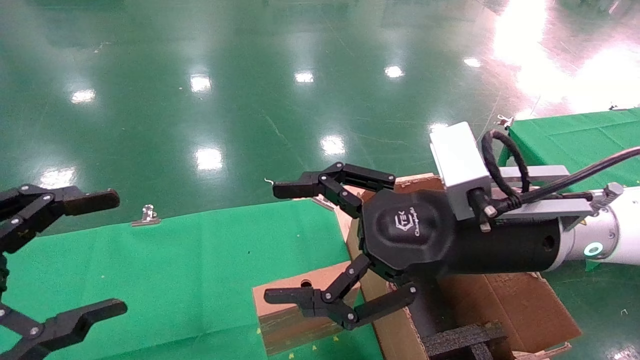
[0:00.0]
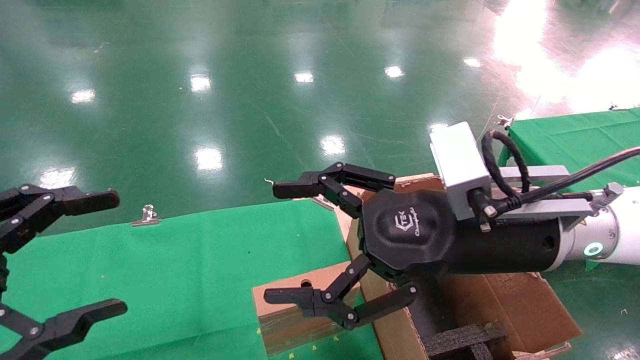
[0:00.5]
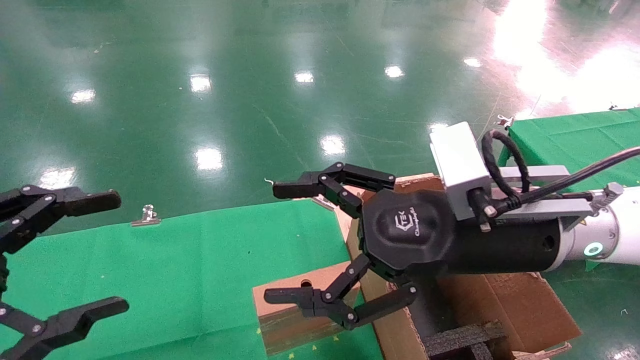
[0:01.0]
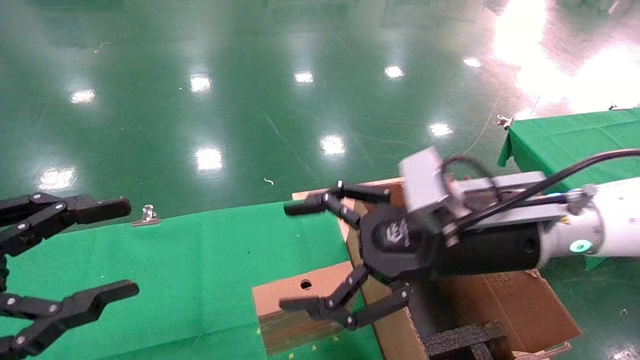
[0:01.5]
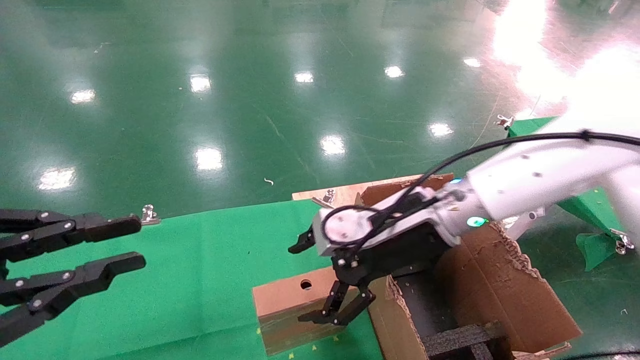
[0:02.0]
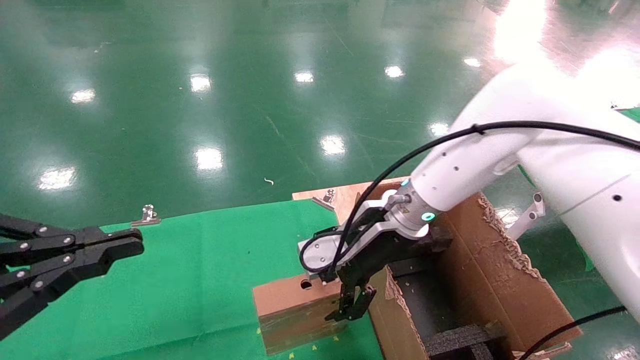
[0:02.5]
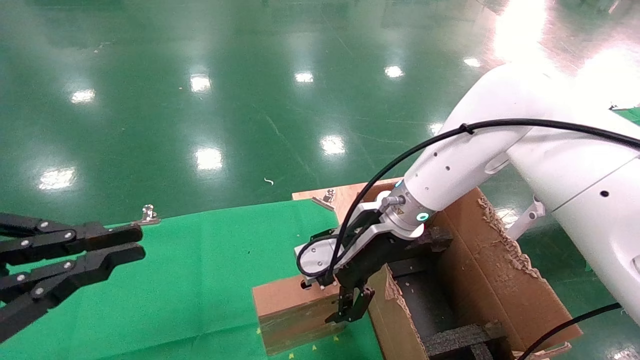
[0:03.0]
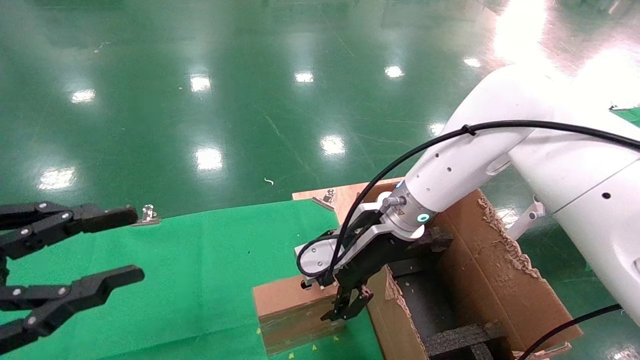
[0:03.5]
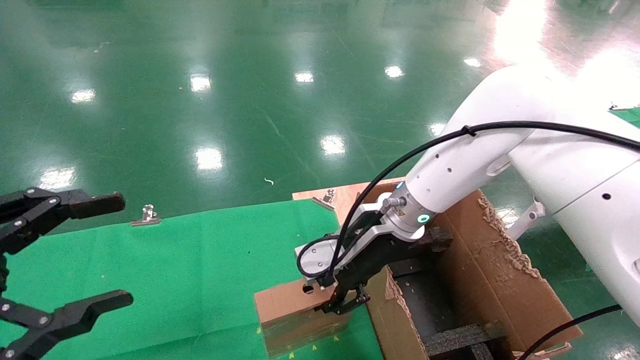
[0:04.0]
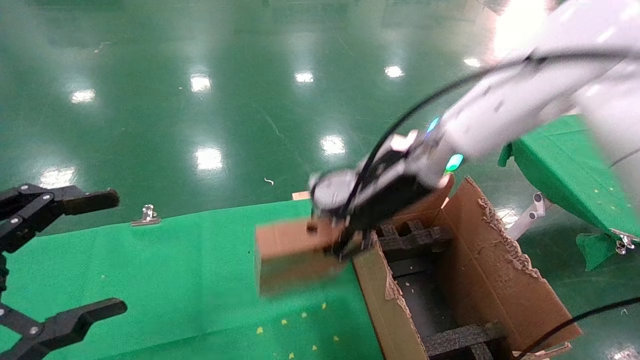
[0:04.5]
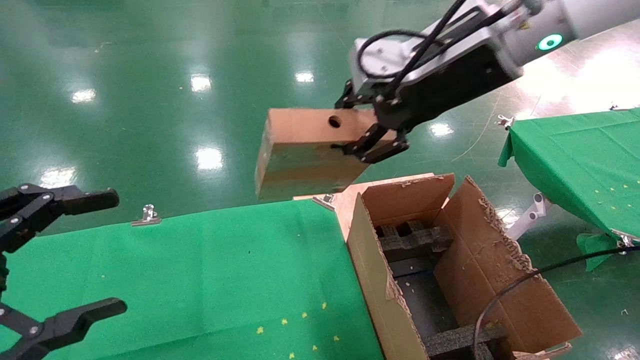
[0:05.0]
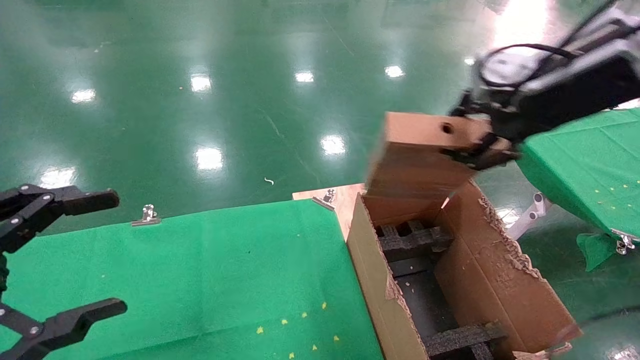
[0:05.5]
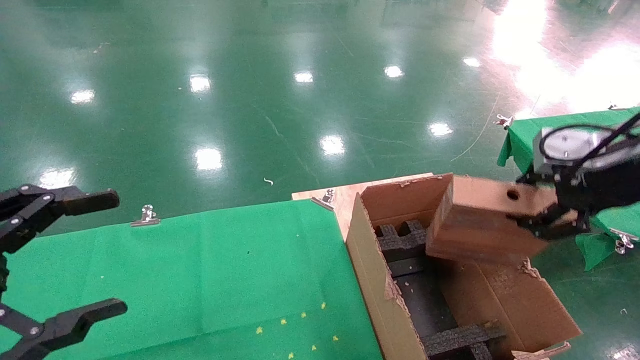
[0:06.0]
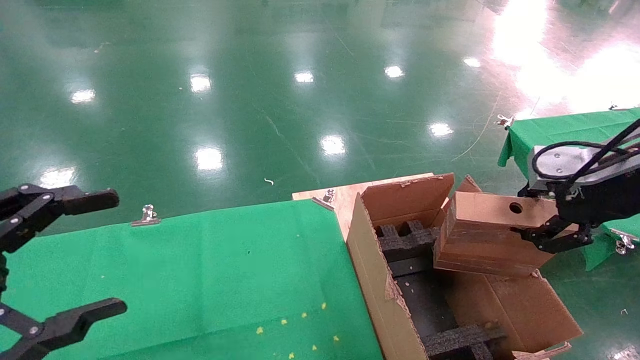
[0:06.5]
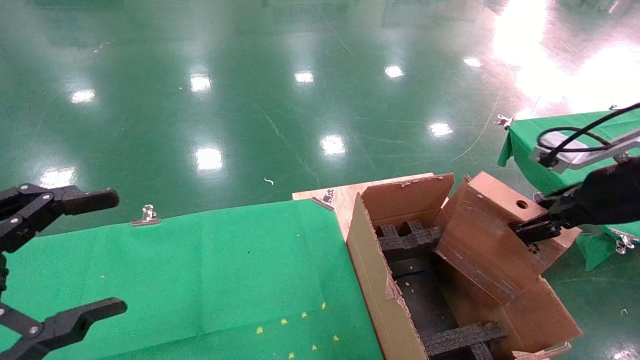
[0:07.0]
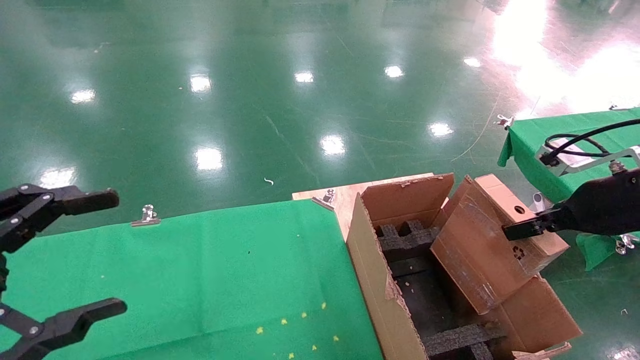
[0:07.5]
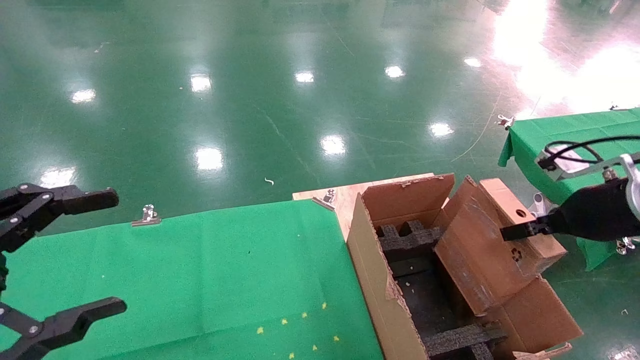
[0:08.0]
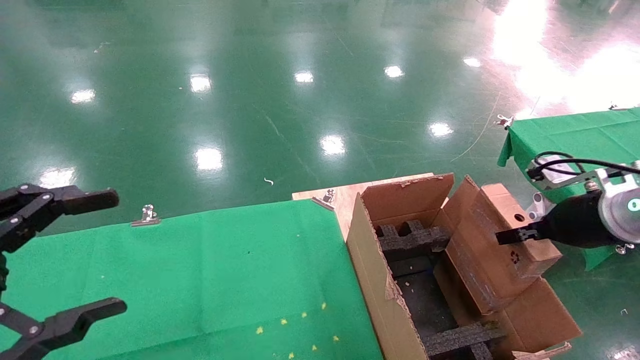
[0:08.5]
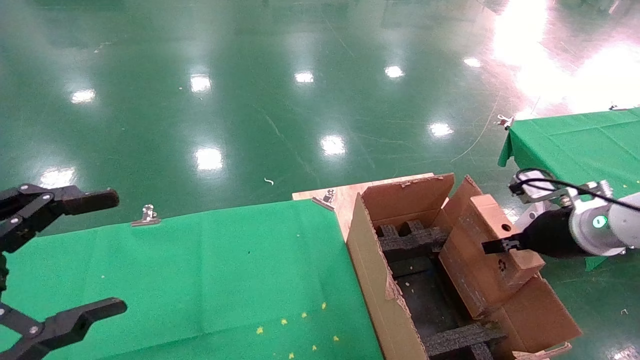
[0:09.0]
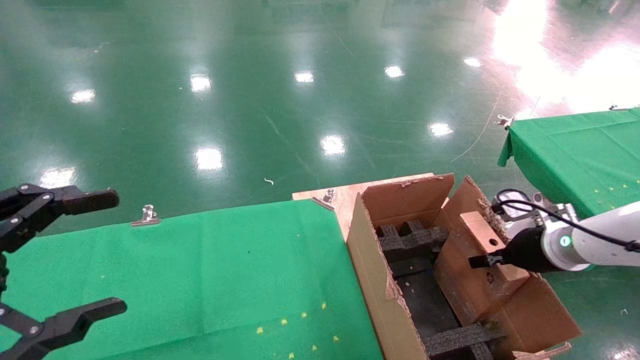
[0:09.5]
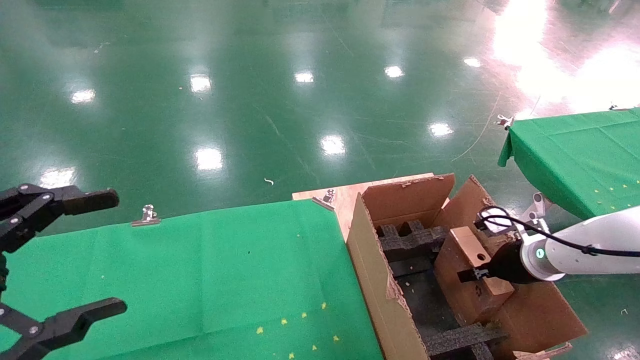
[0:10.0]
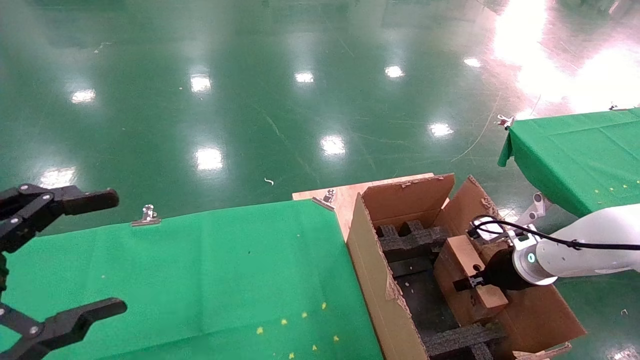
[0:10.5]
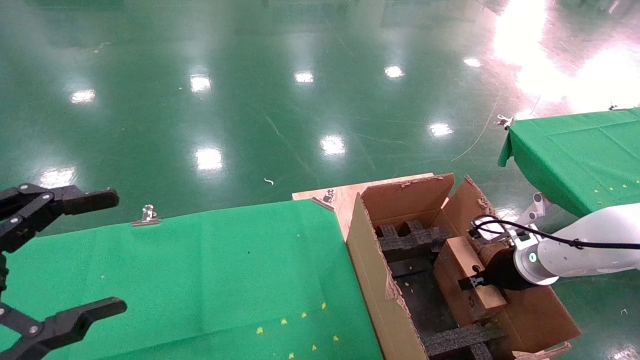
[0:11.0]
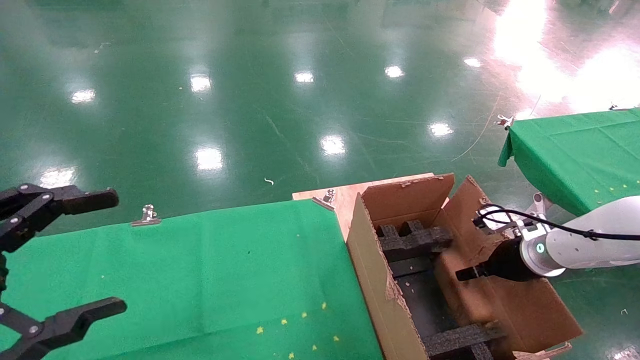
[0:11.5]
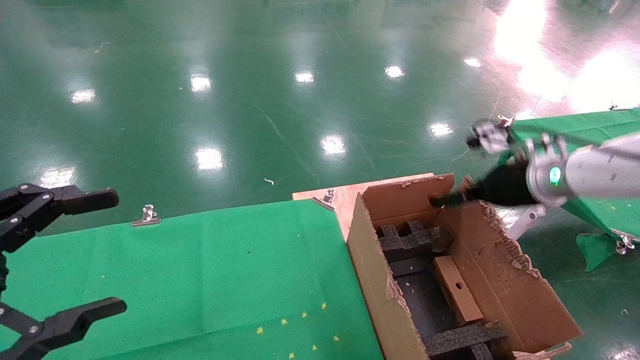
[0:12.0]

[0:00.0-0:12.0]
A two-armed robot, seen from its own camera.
Task of the whole recording: using a robotic arm to pick up a cardboard box and palace it the carton.
Step, 0:02.0 to 0:04.0: Pick up the mouse and the power cord paper box.
Step, 0:04.5 to 0:11.5: Place the mouse and the power cord paper box into the container.
0:00.0 to 0:02.0: The left gripper closes up. The right gripper goes roughly 10 cm forward.
0:02.0 to 0:04.0: The left gripper opens its fingers. The right gripper shifts by some 5 cm, and closes its fingers.
0:04.0 to 0:06.0: The right gripper goes approximately 30 cm to the right, backward and upward.
0:06.0 to 0:08.0: The right gripper goes approximately 10 cm downward.
0:08.0 to 0:10.0: The right gripper is displaced downward and forward by approximately 20 cm.
0:10.0 to 0:12.0: The right gripper moves upward, about 15 cm, and opens up.

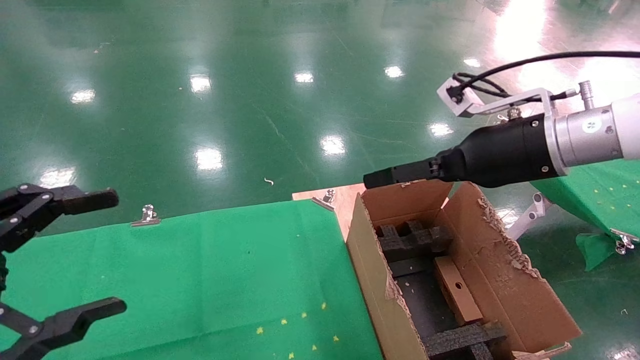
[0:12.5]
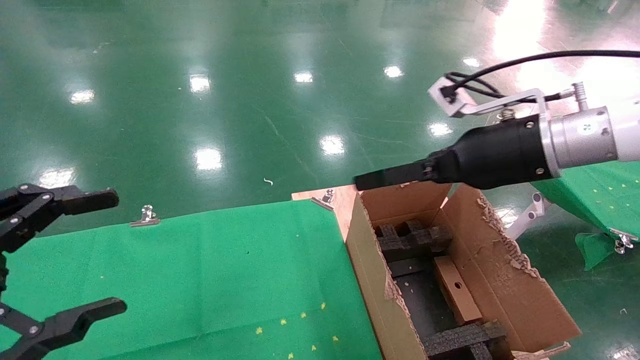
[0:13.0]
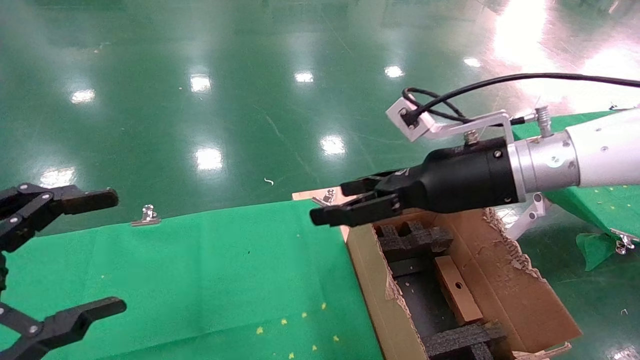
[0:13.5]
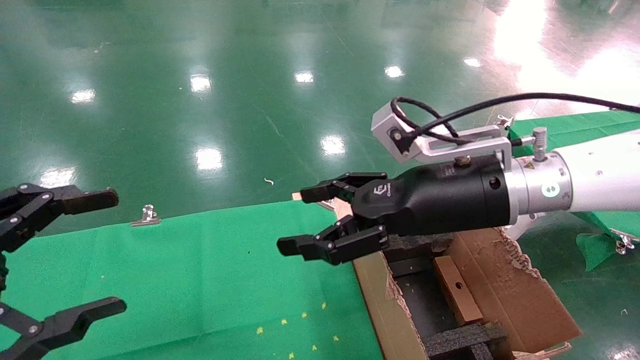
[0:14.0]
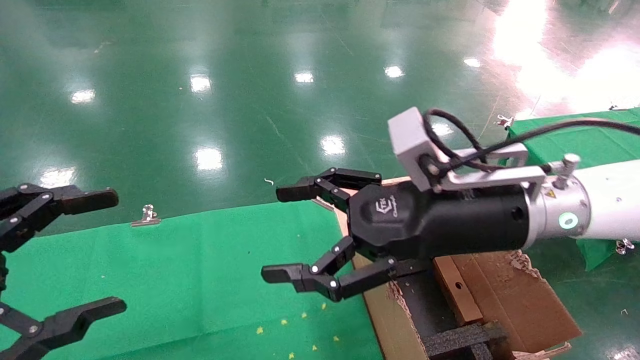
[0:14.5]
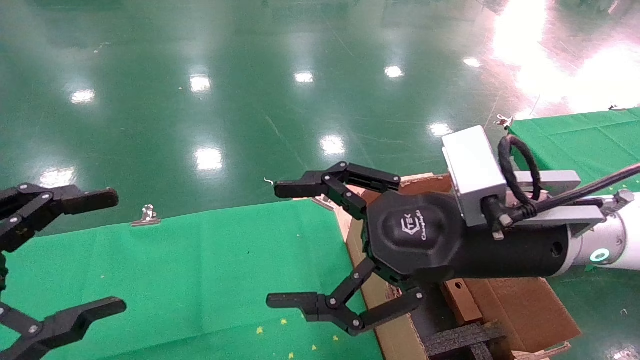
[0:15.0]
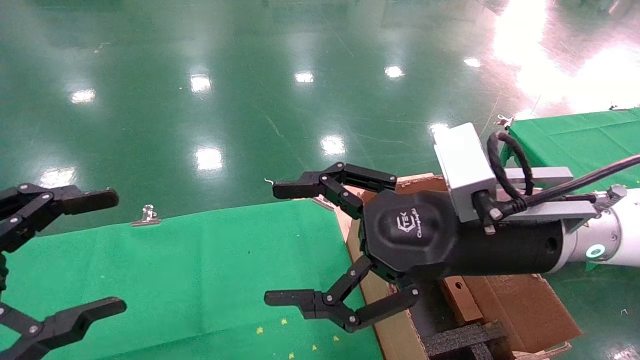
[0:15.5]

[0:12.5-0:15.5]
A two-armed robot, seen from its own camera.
Task of the whole recording: using a robotic arm to pick up a cardboard box and palace it the carton.
0:12.5 to 0:14.0: The right gripper goes roughly 10 cm to the left.
0:14.0 to 0:15.5: The right gripper goes roughly 5 cm backward.

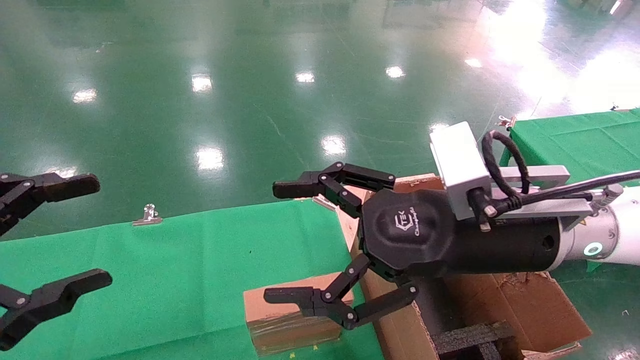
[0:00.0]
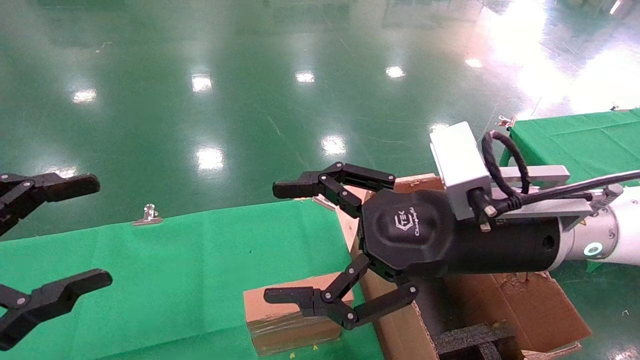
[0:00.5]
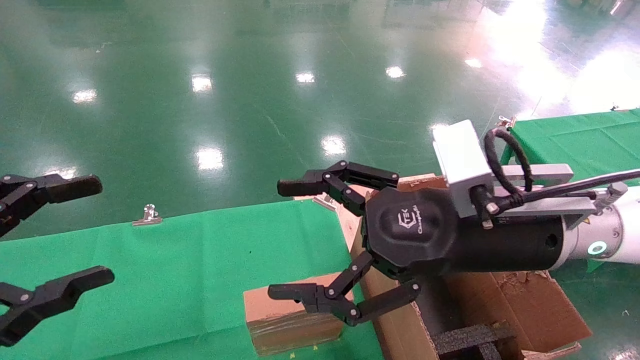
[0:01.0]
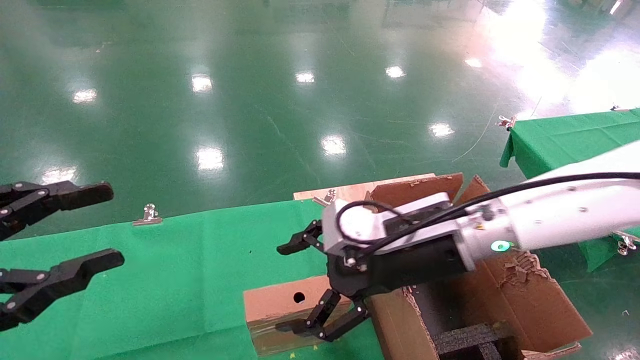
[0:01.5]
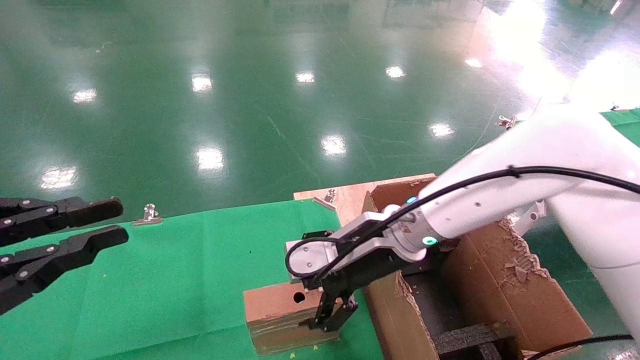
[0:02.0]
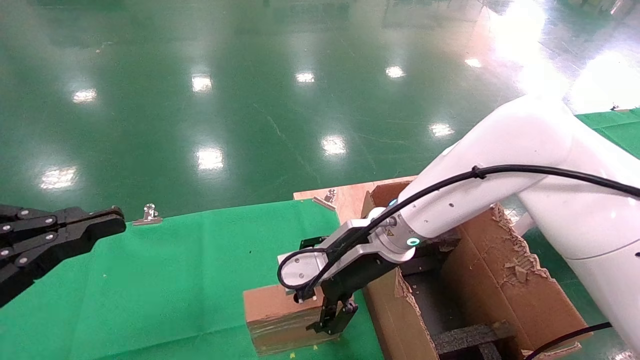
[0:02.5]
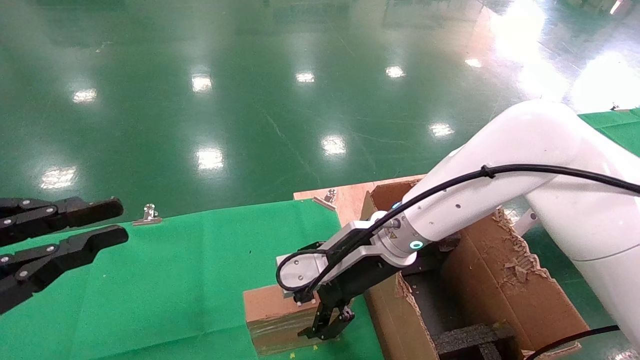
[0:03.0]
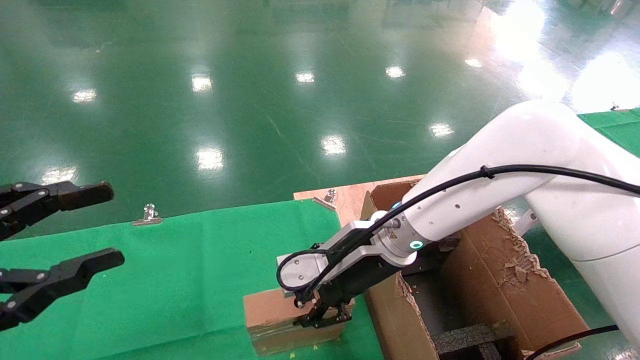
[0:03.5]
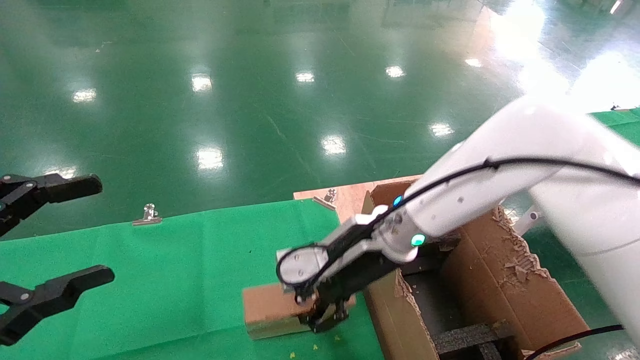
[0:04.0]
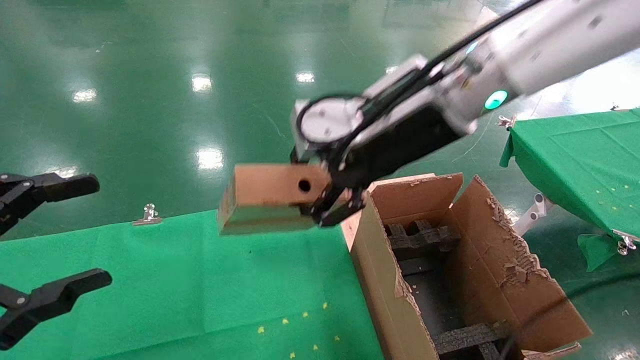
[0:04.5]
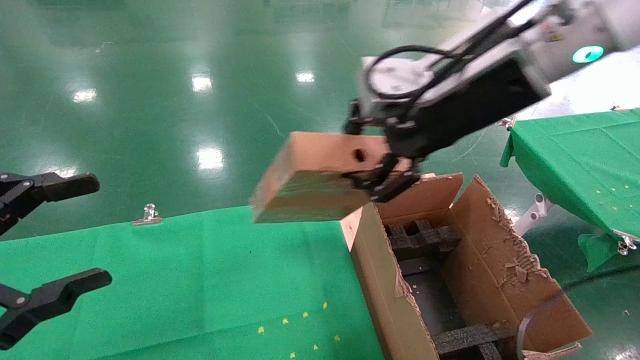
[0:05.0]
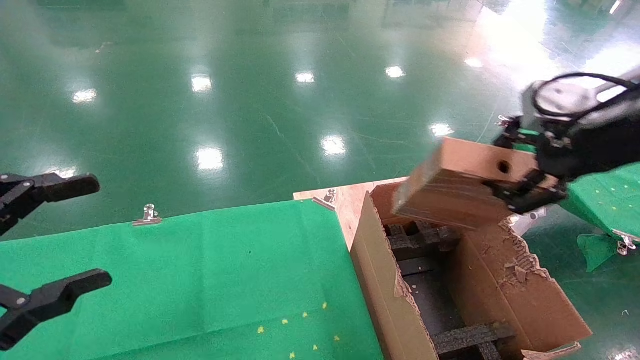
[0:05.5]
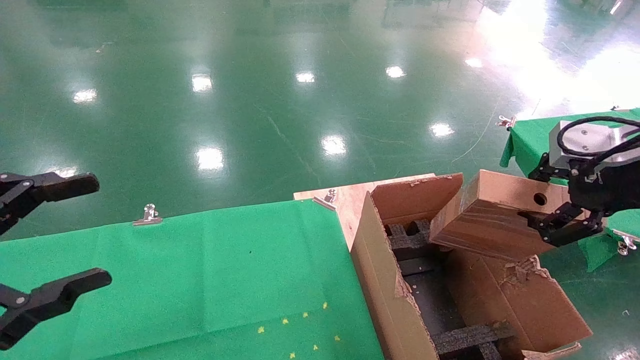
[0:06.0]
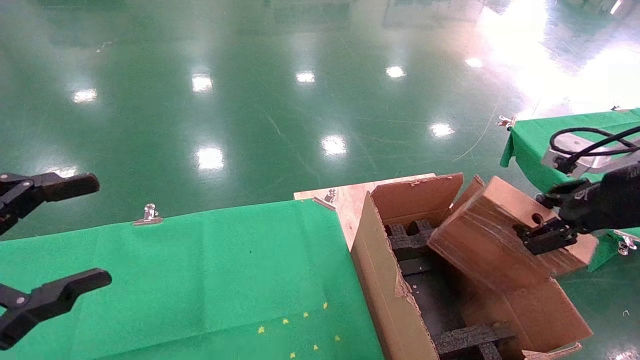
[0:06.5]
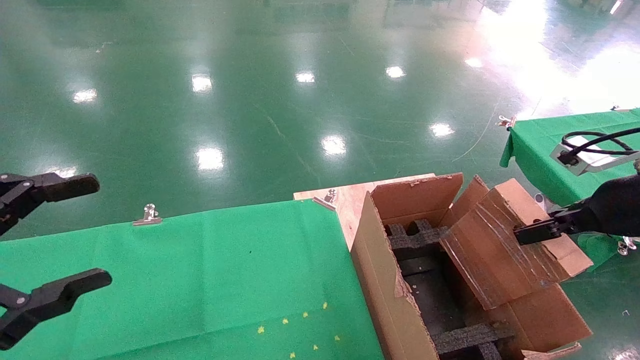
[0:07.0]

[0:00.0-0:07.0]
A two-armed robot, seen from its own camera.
Task of the whole recording: using a robotic arm to pick up a cardboard box and palace it the carton.
Step, 0:01.5 to 0:03.5: Pick up the mouse and the power cord paper box.
0:00.0 to 0:02.0: The right gripper goes some 15 cm forward, to the left and downward. The left gripper closes.
0:02.0 to 0:03.5: The right gripper closes.
0:03.5 to 0:05.0: The left gripper opens its fingers. Meanwhile the right gripper is displaced upward and to the right by roughly 25 cm, and closes its fingers.
0:05.0 to 0:07.0: The right gripper travels to the right and downward by about 25 cm.
